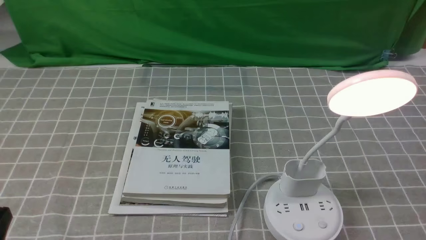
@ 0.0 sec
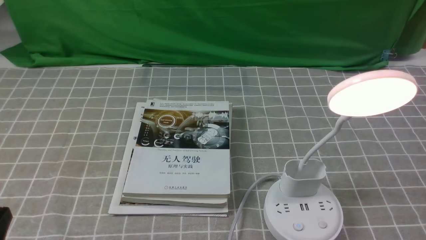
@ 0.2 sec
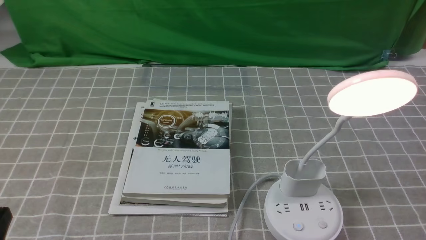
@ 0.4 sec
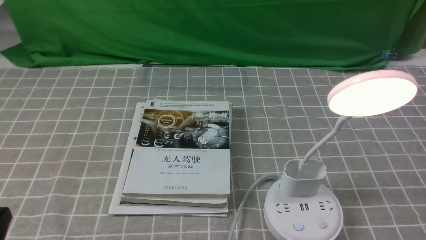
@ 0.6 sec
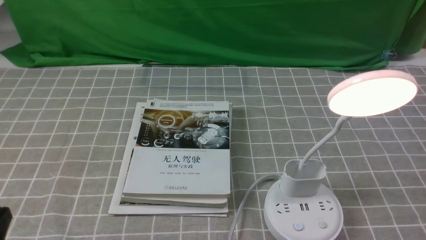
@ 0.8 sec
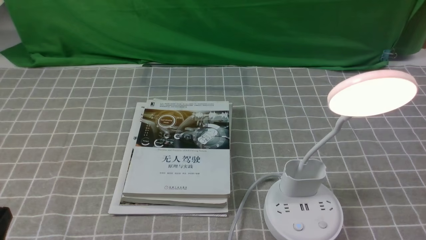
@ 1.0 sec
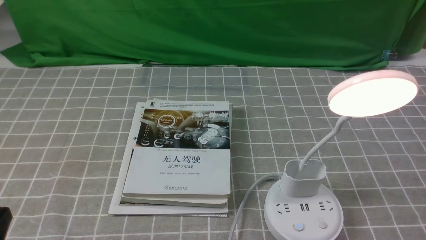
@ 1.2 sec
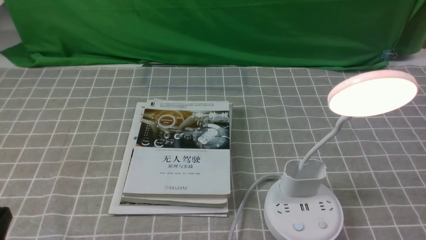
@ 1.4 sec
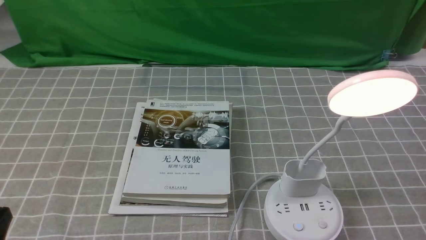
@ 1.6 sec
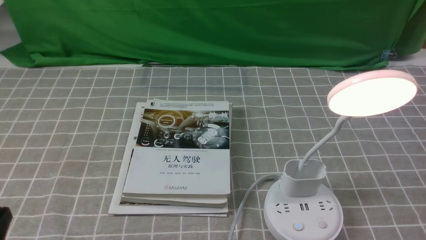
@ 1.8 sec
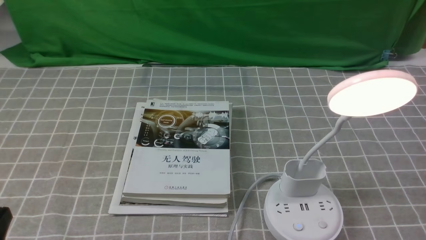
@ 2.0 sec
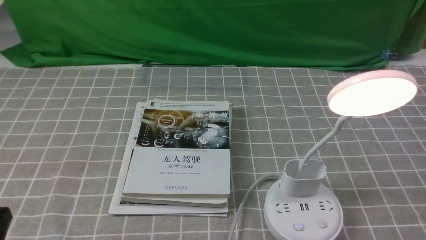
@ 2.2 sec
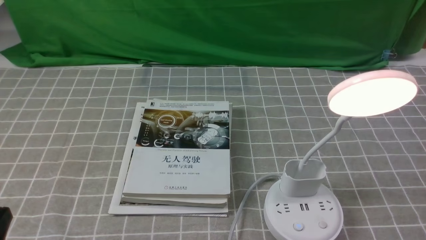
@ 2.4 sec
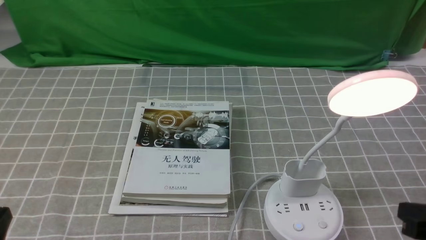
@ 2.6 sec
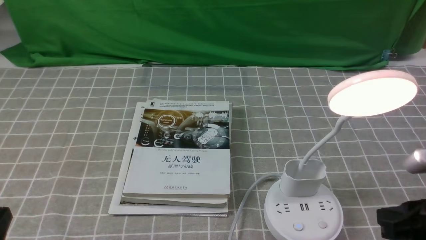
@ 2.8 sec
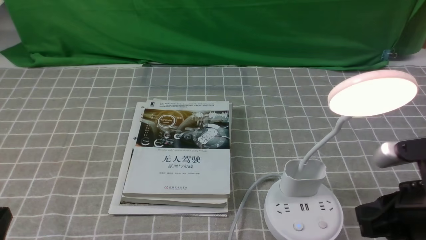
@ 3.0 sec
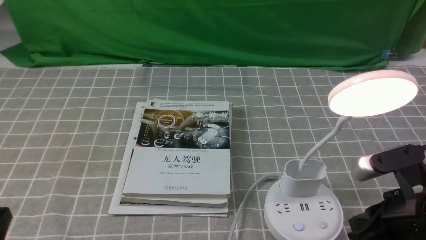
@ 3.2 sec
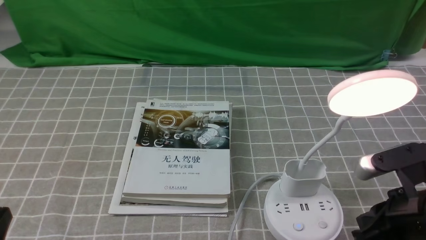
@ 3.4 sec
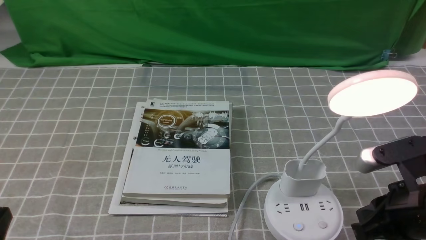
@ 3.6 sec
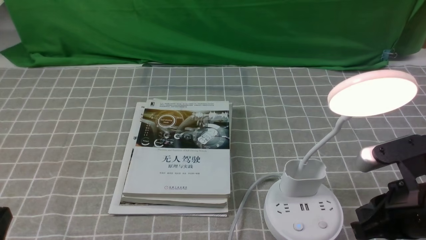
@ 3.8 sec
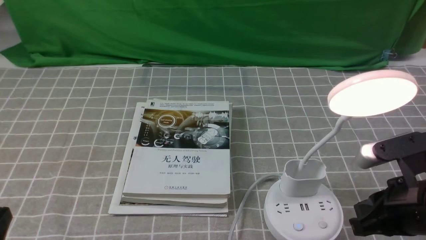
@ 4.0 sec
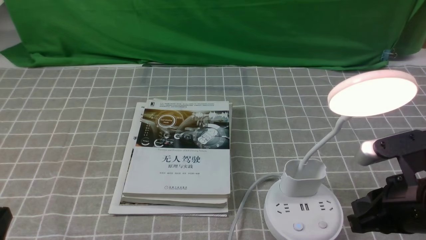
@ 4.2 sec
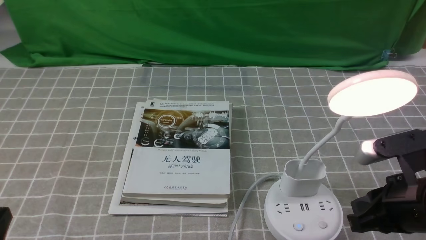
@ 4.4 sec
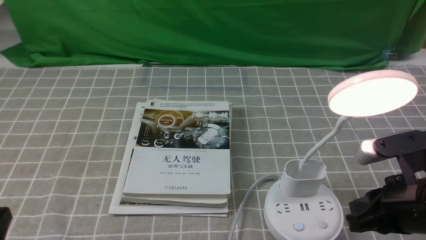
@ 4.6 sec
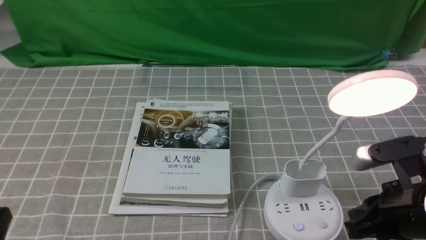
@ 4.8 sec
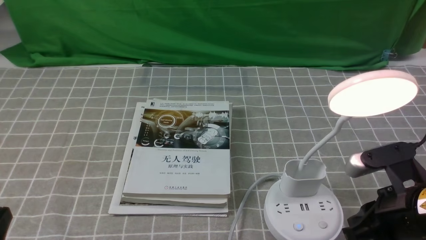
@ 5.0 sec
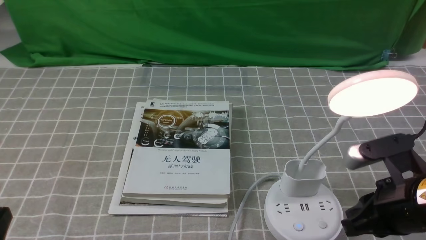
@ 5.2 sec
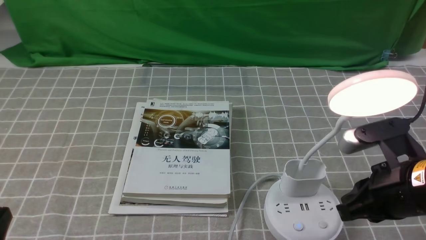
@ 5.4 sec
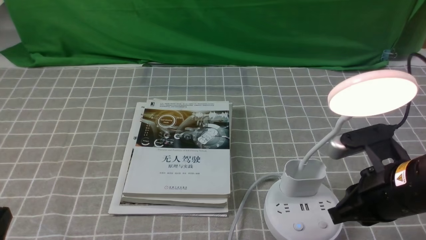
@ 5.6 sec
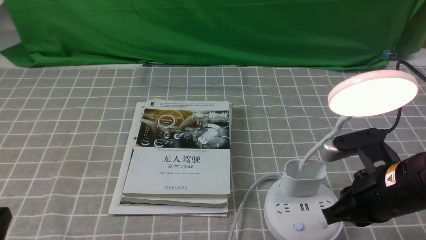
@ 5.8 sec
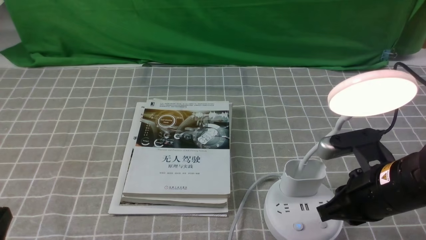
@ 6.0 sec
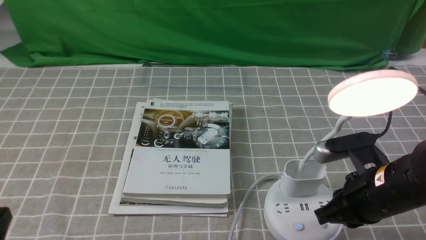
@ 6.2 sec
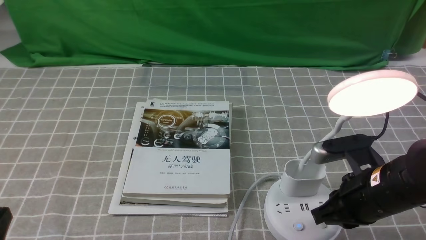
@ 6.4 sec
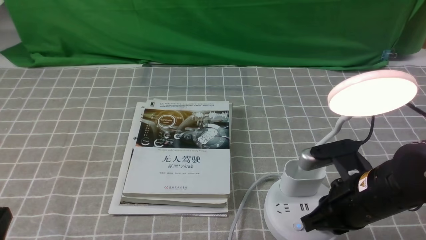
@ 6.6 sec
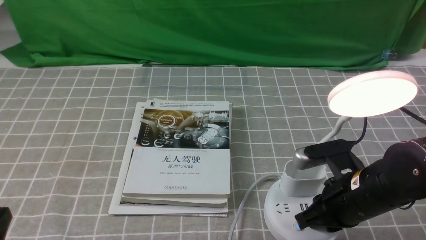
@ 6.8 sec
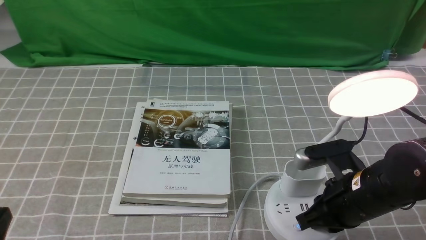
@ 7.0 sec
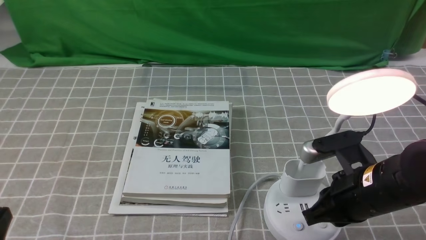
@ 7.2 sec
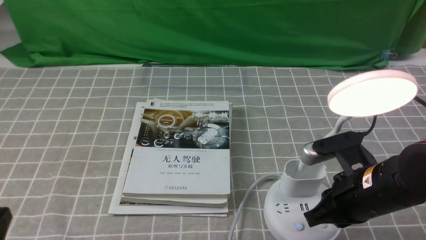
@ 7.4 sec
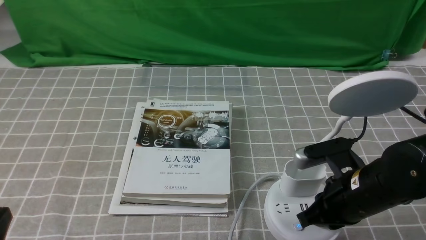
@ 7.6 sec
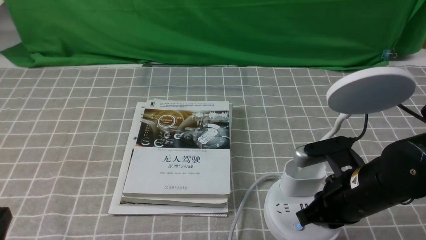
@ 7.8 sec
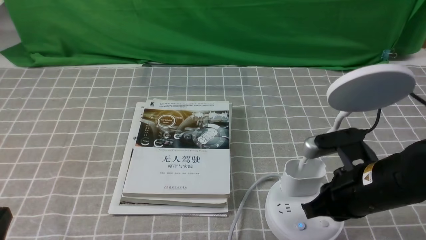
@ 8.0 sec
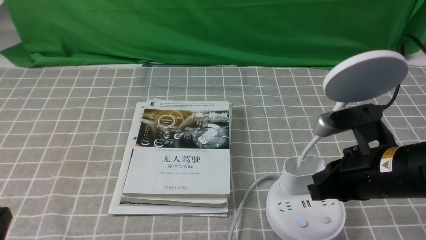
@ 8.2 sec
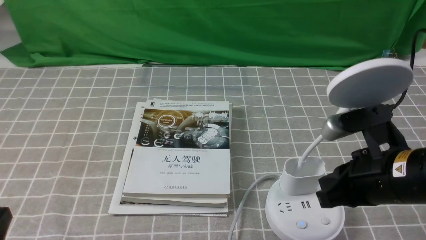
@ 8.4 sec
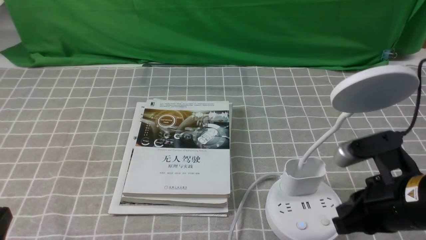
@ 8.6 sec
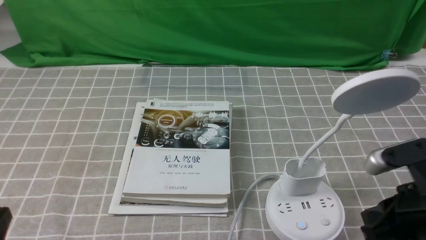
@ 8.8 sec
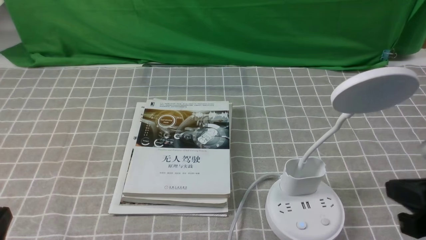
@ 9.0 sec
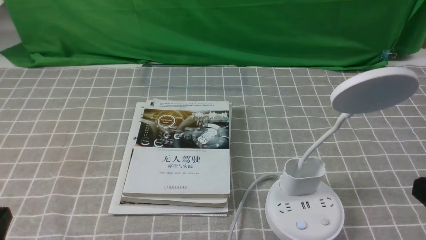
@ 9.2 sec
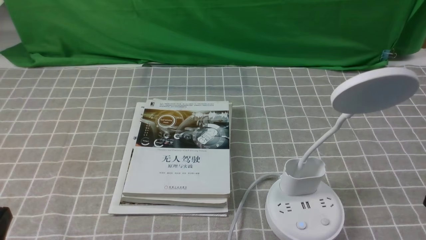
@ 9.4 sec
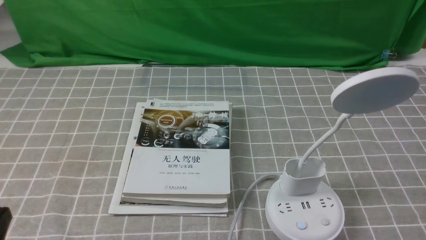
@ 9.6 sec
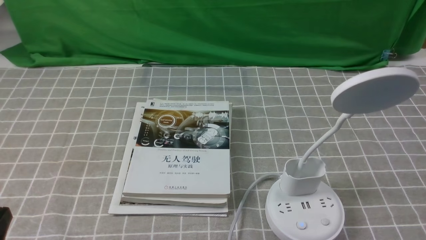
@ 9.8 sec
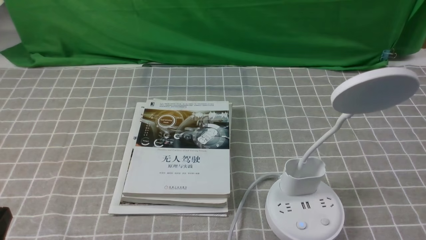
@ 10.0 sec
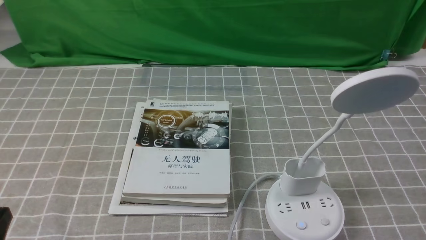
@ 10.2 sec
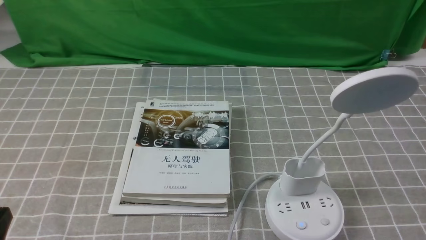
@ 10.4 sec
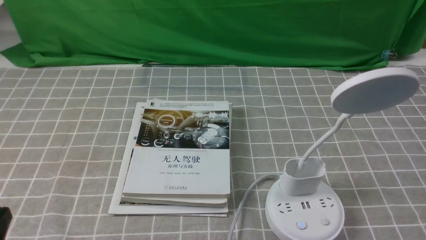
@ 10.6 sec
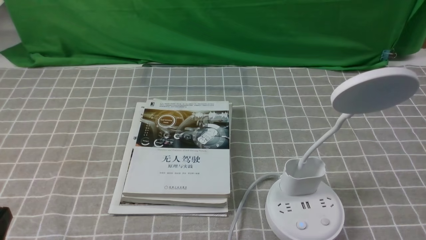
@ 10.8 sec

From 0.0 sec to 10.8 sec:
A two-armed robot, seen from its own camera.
Task of the whole recording: turn off the desk lamp on the grey coffee tablecloth by hand.
Step, from 0.0 sec to 7.8 sec: use the right arm to press the button switch on the lamp holder.
From 1.6 sec to 3.0 sec: The right gripper goes roughly 10 cm forward and to the left, and closes its fingers.
From 3.0 sec to 4.6 sec: There are only small adjustments of the grippers.
From 4.6 sec to 6.2 sec: The right gripper changes place by about 5 cm.
From 6.2 sec to 7.8 sec: The grippers stay close to where they were, moving slightly.
From 7.8 sec to 9.2 sec: The right gripper heads backward, to the right and upward, covering approximately 20 cm.

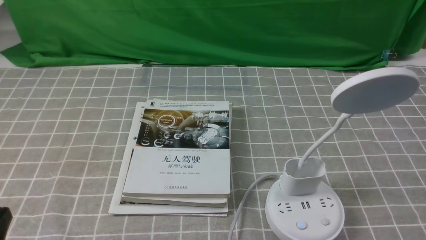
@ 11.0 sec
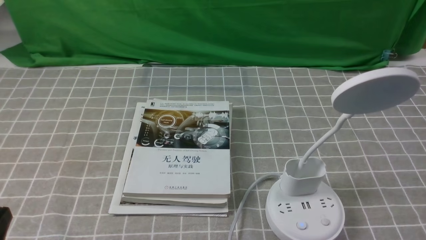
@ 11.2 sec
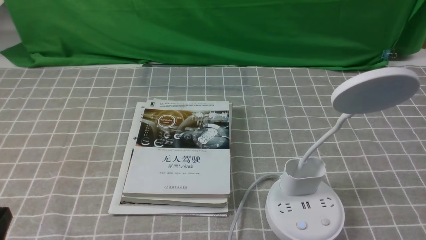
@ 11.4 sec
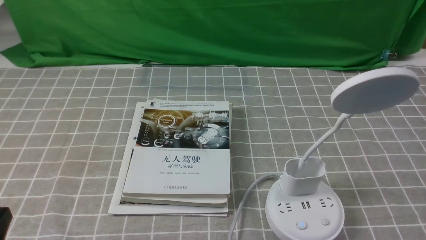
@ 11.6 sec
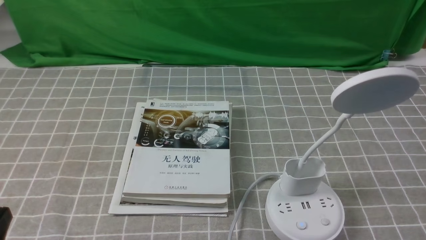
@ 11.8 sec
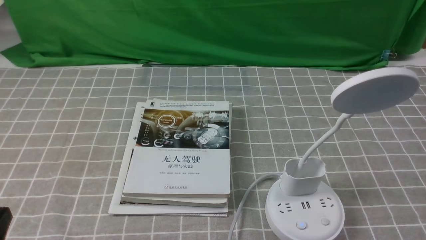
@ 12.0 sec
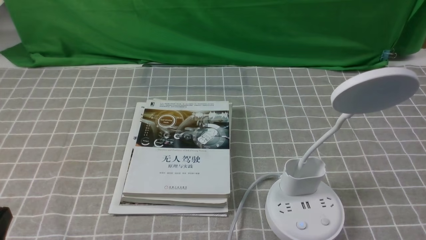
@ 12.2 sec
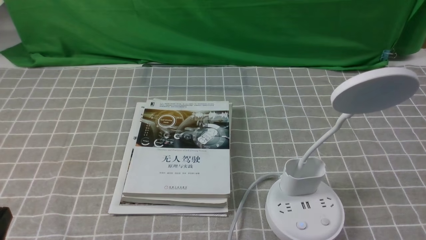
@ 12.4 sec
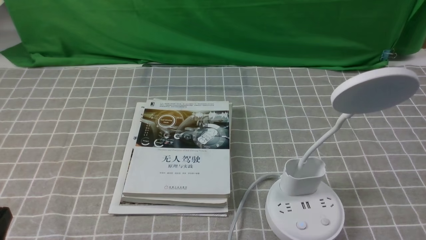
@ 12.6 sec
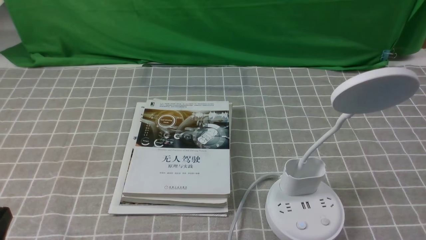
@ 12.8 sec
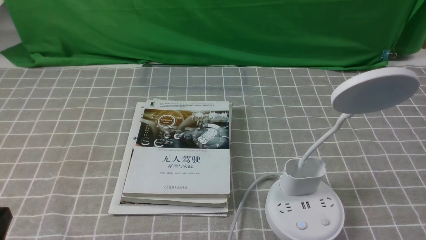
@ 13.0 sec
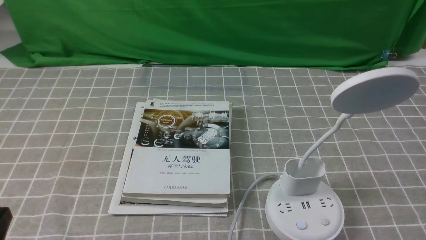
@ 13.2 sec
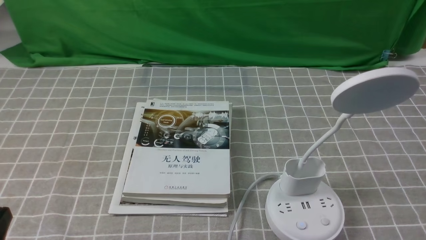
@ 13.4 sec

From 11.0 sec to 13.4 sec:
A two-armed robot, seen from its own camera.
Task of the whole recording: turn off the desk lamp on the grey coffee tablecloth by hand.
From 12.2 sec to 13.4 sec: Both grippers stay about where they are.
